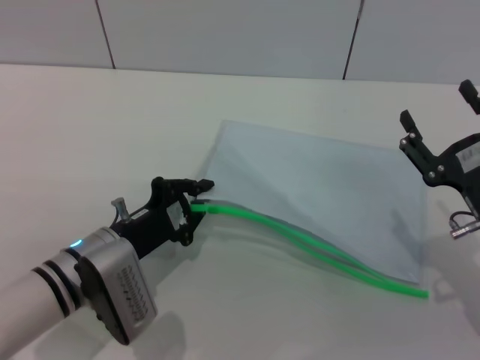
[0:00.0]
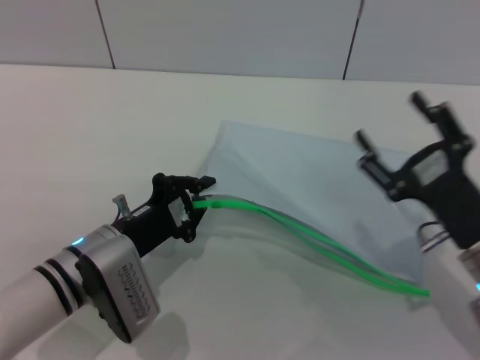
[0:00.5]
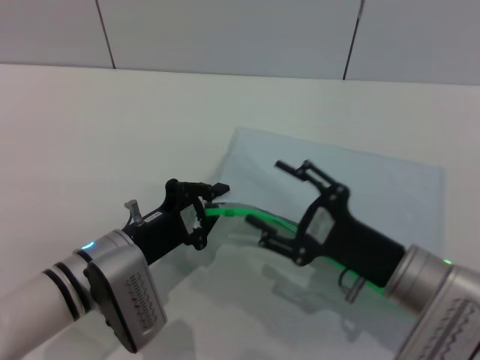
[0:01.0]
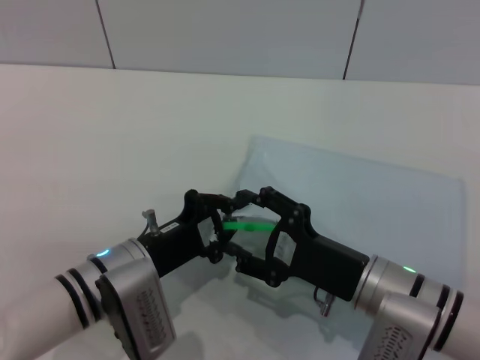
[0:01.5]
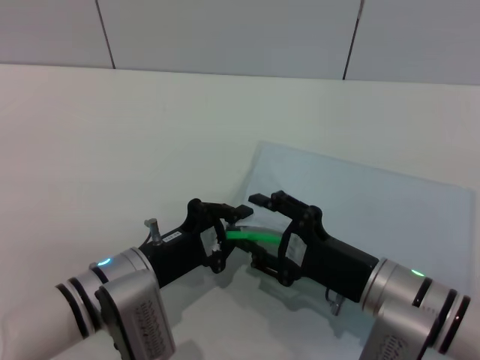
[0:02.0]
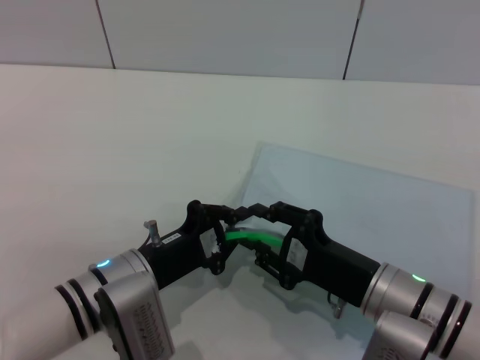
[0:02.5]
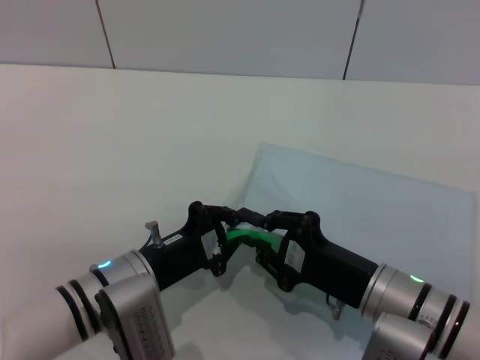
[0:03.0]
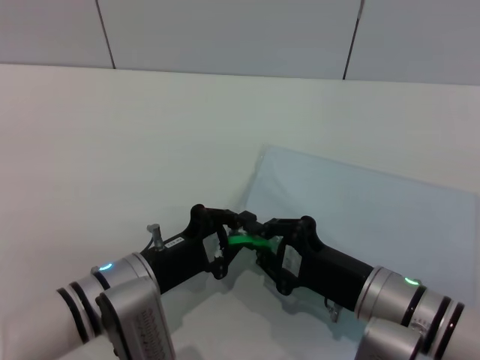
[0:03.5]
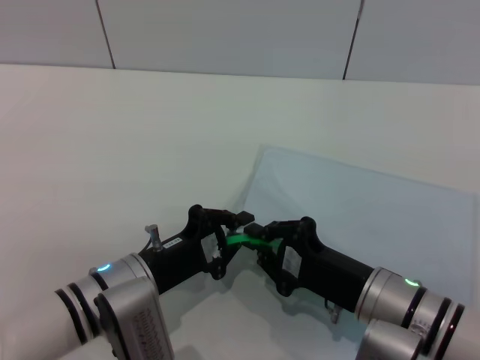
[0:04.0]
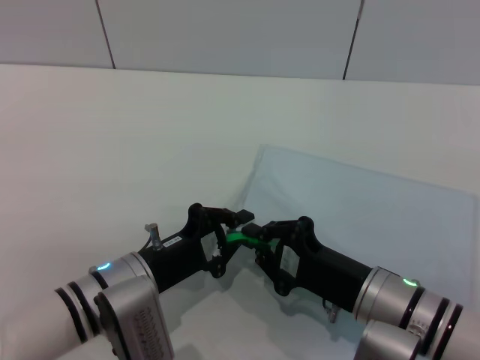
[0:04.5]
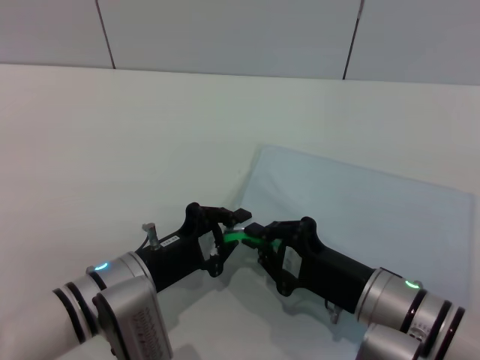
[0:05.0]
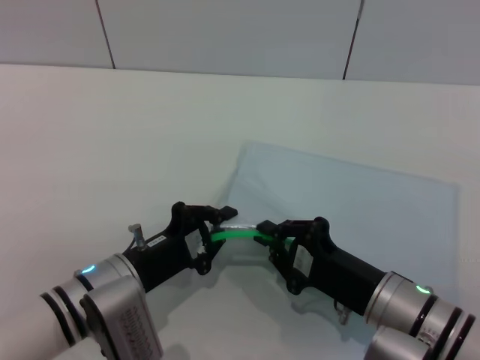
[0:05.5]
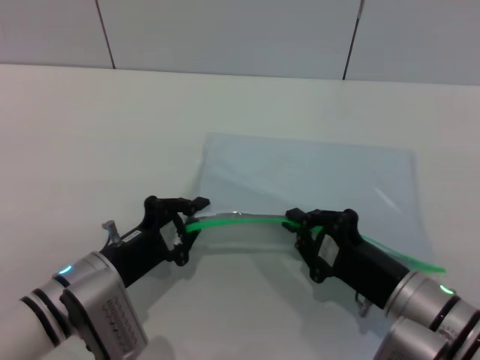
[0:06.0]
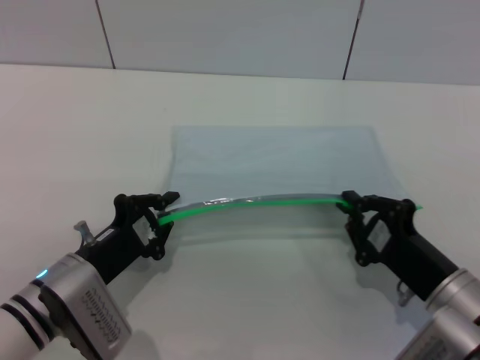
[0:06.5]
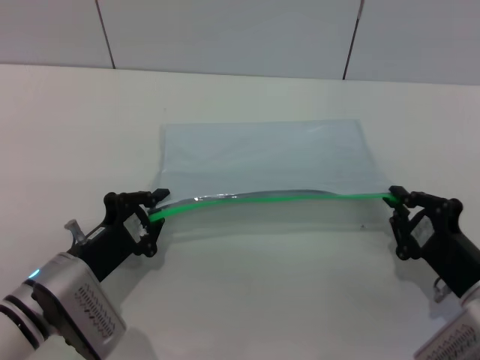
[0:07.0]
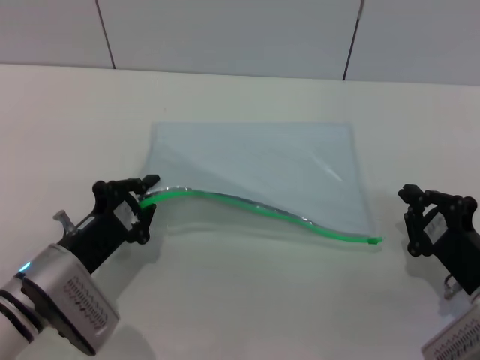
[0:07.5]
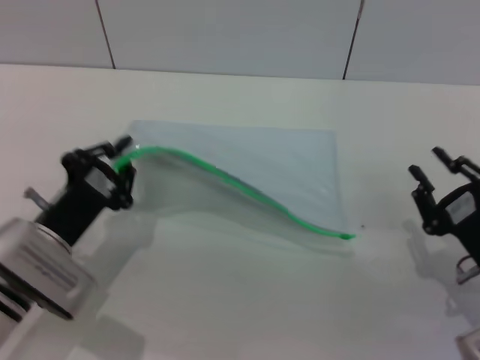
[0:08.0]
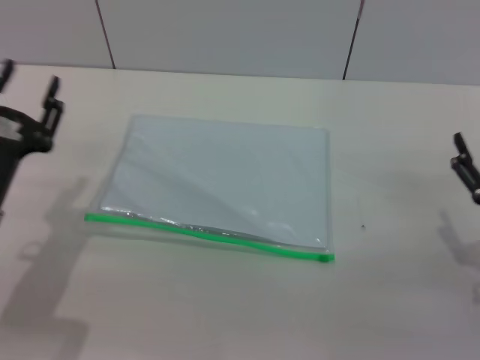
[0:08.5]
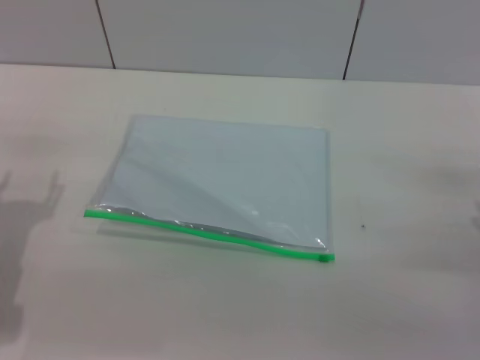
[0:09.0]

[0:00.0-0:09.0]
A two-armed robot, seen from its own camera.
Step, 0.5 to 7.5 s: Pulling up the zipper on the transparent plastic bag with the right gripper to close it.
Step, 8.0 to 8.5 s: Place the transparent plastic bag.
0.0 to 2.0 s: The right gripper travels to the left by some 10 cm. Meanwhile the left gripper closes its fingers.
2.0 to 4.5 s: The right gripper closes its fingers.
4.5 to 7.0 s: The right gripper moves to the right, about 10 cm. The left gripper is displaced to the left by approximately 5 cm.
7.0 to 9.0 s: The right gripper heads to the right, covering approximately 5 cm, and opens its fingers. Meanwhile the left gripper is displaced to the left and upward by some 10 cm, and opens up.

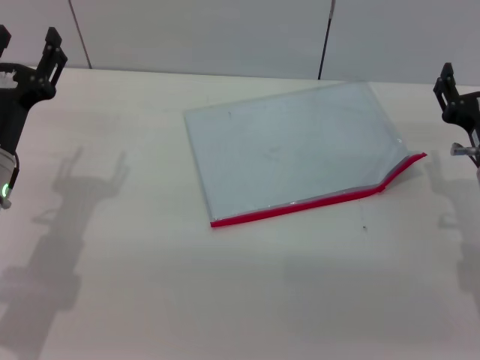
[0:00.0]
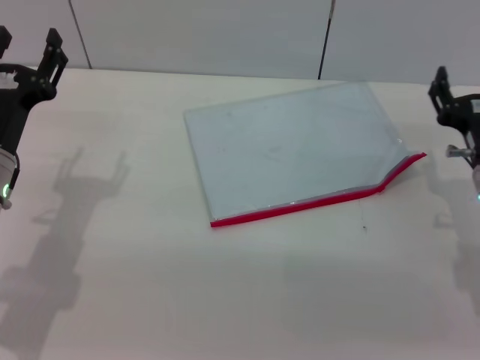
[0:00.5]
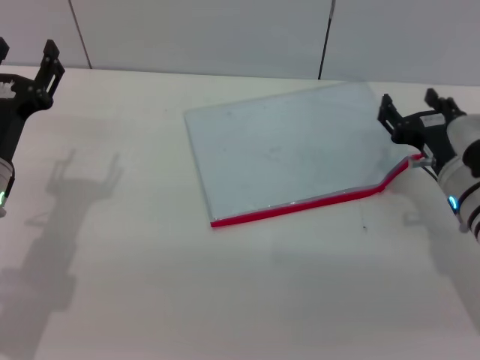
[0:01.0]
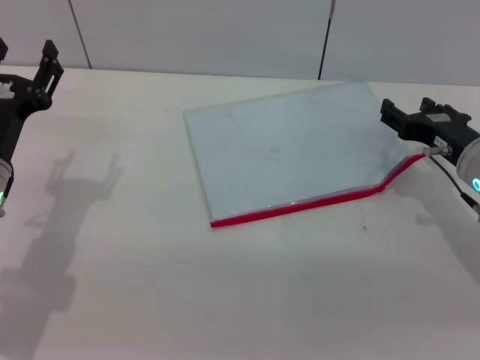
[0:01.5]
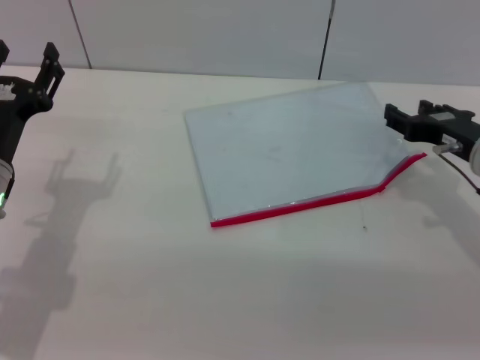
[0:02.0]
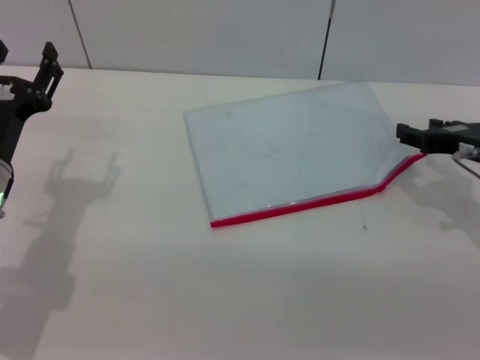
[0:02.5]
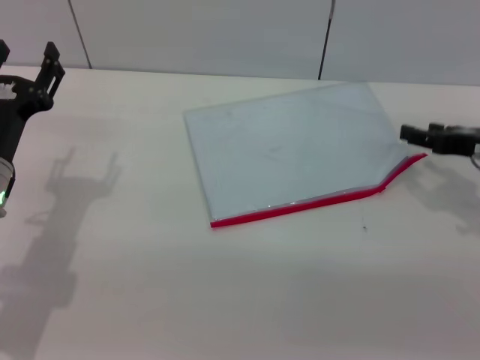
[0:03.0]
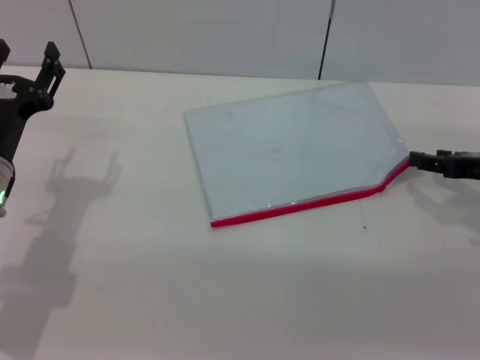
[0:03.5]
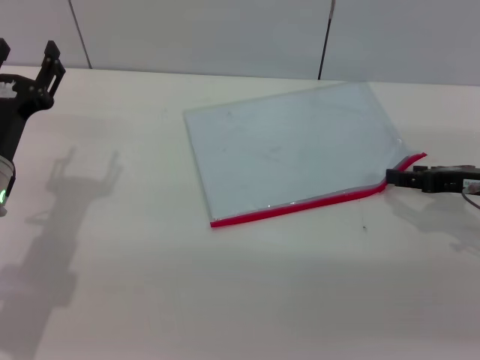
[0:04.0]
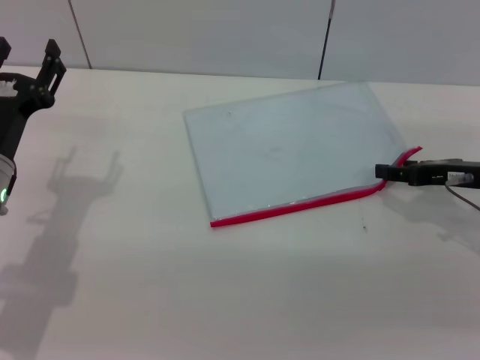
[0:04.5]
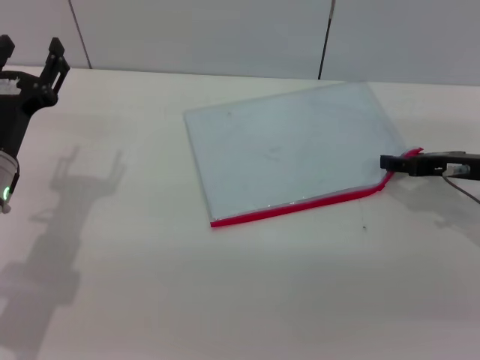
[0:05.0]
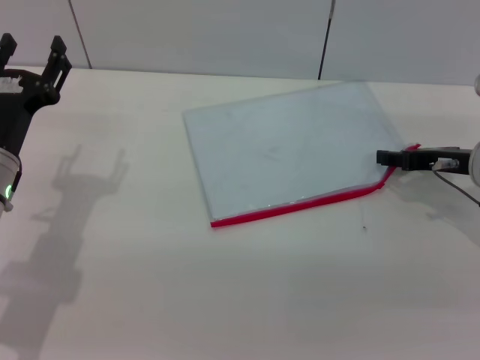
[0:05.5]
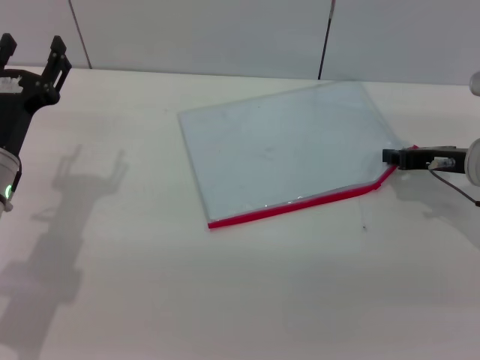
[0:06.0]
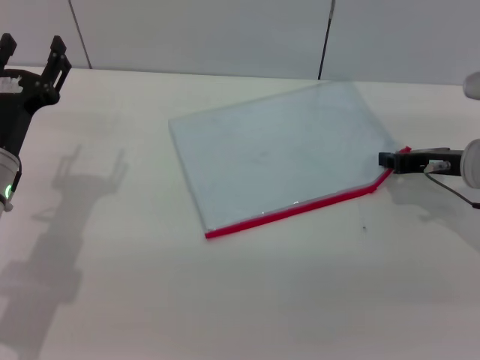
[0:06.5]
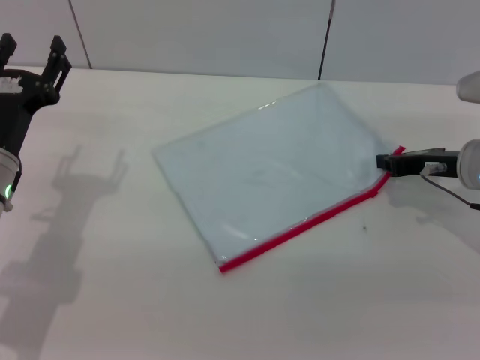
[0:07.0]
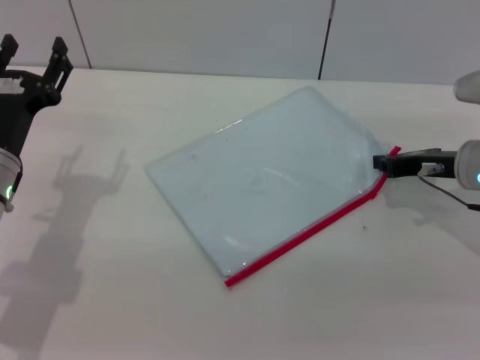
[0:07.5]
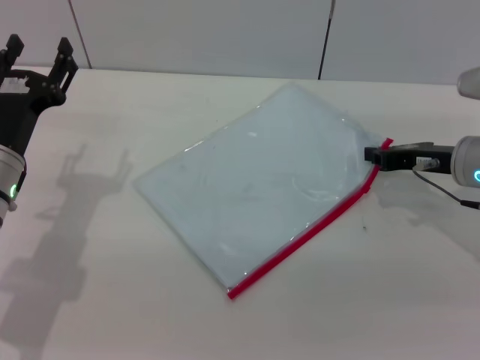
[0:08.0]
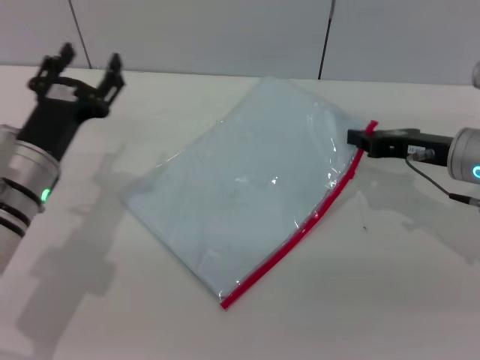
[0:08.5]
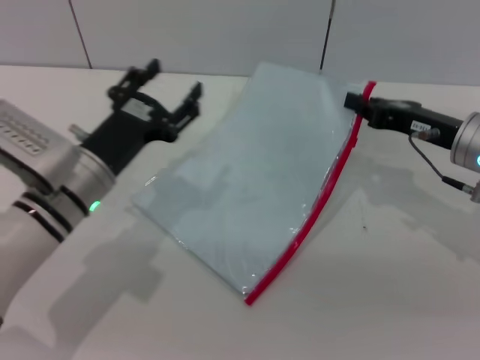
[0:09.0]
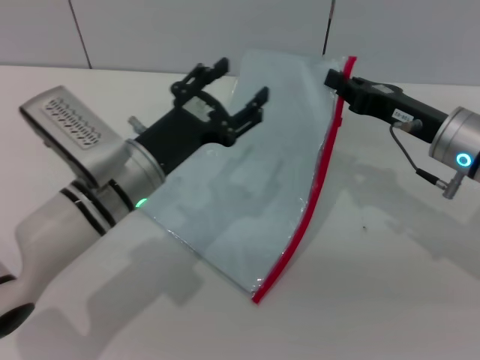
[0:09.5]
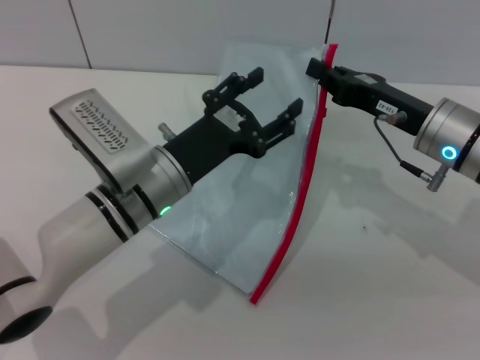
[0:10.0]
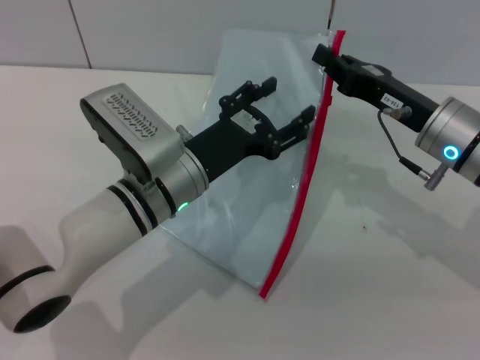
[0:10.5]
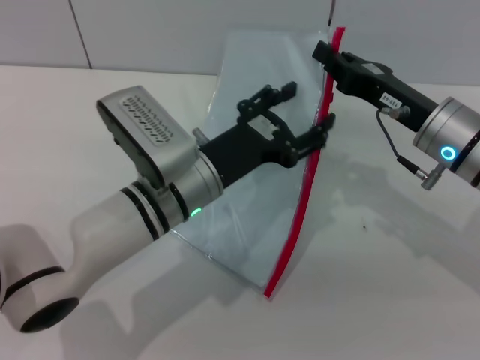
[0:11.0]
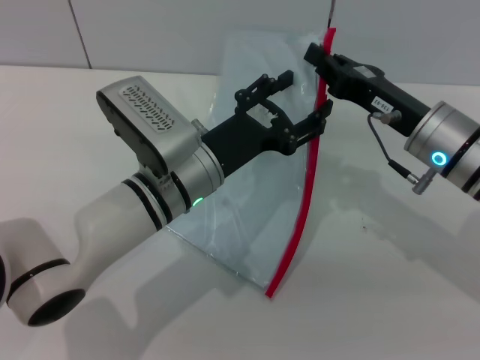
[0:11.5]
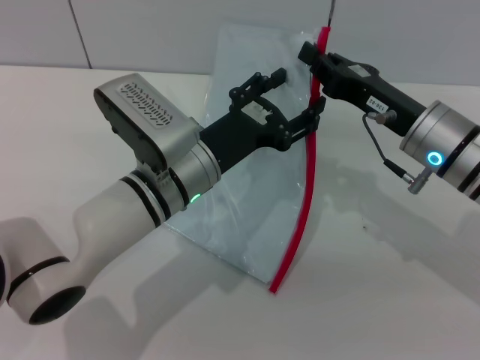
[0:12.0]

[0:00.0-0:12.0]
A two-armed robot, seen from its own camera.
Step, 0.0 to 10.0 s: Pick up the transparent plastic bag with the right gripper.
0.0 to 2.0 s: The right gripper moves approximately 5 cm.
2.0 to 4.0 s: The right gripper shifts approximately 5 cm to the right.
4.0 to 6.0 s: The right gripper shifts by approximately 5 cm.
6.0 to 8.0 s: The right gripper closes.
8.0 to 10.0 s: The left gripper goes about 15 cm to the right. Meanwhile the right gripper moves some 5 cm.

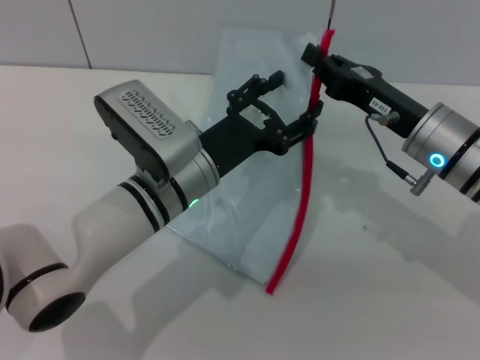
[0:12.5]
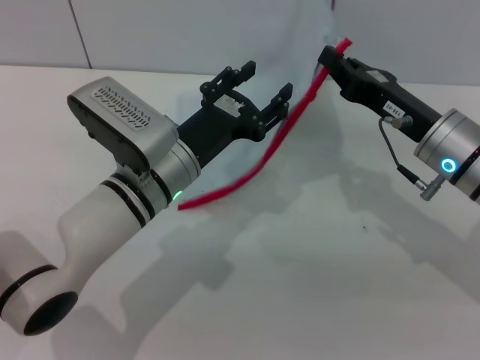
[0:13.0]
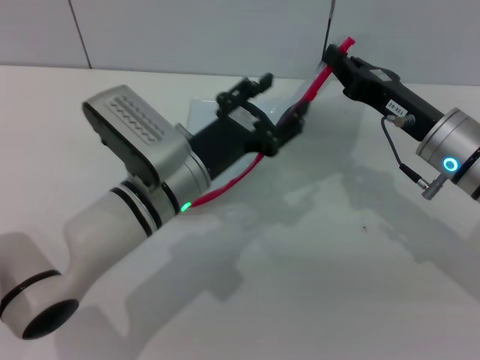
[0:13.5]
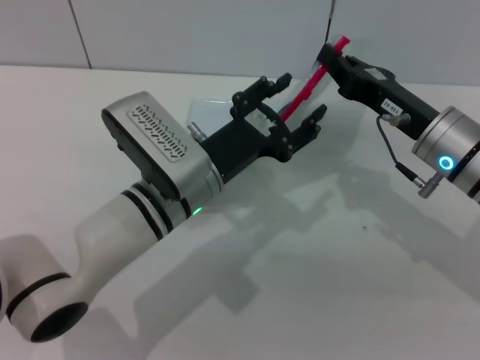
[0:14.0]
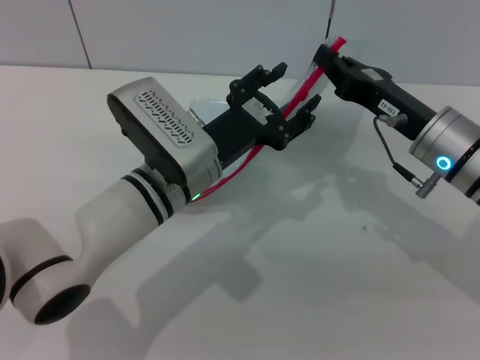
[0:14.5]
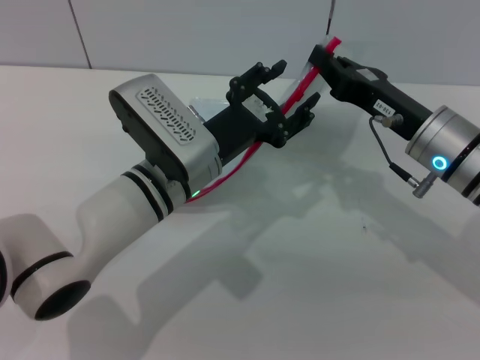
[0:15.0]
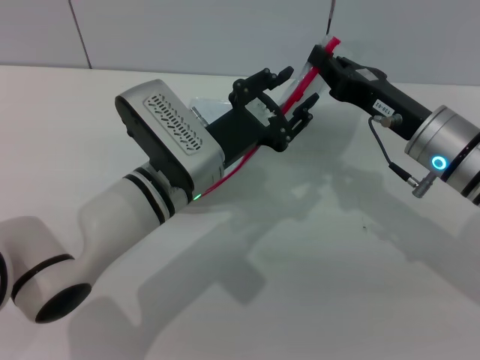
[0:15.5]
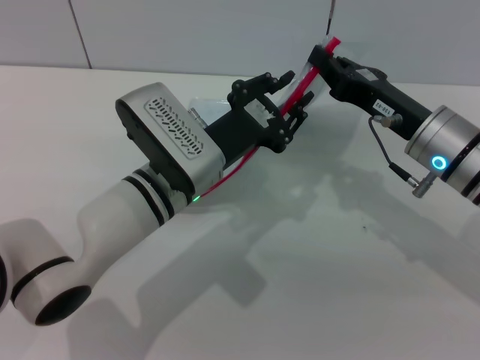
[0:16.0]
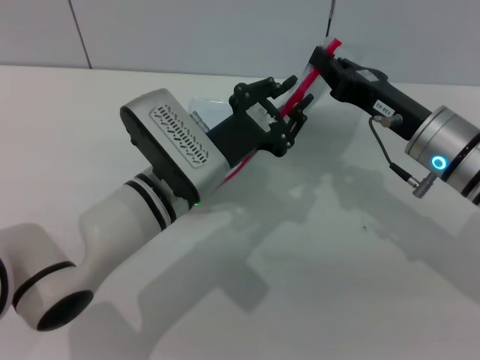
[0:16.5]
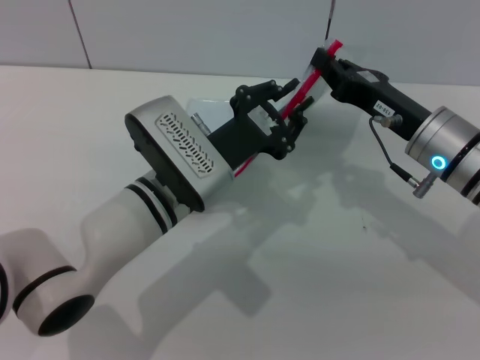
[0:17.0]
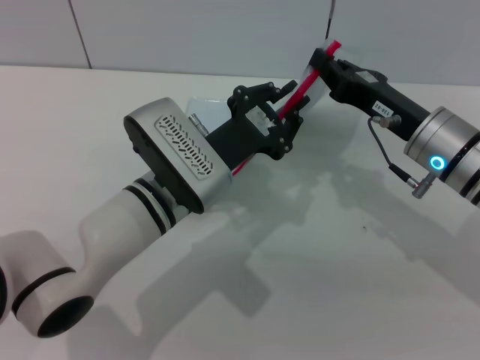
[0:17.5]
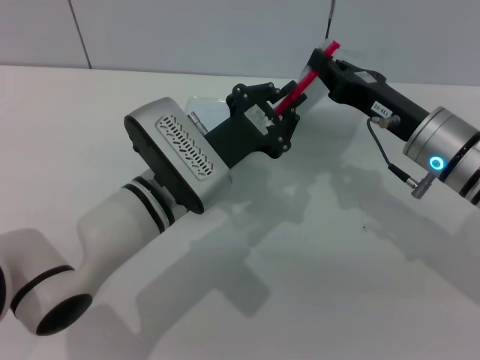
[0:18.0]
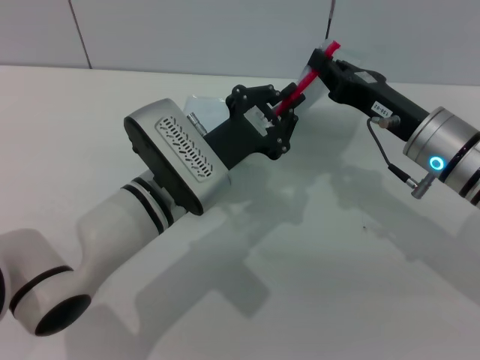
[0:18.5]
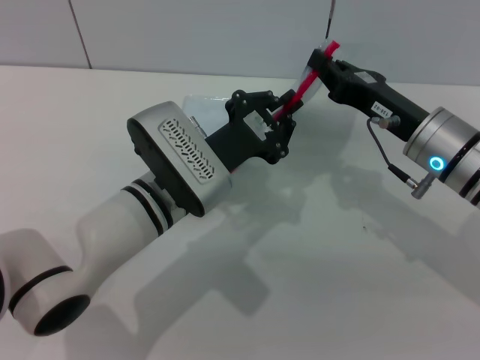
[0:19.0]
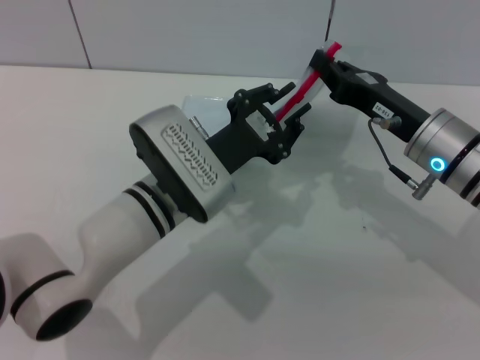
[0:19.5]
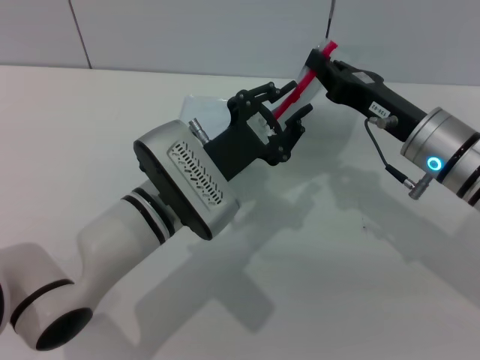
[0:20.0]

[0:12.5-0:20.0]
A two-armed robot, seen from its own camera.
12.5 to 14.5 s: There are only small adjustments of the grippers.
14.5 to 16.5 s: The left gripper closes up.
16.5 to 20.0 s: The grippers make only small movements.
